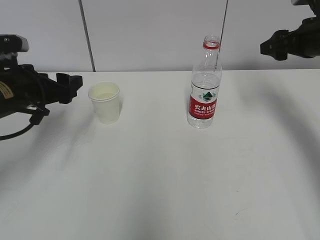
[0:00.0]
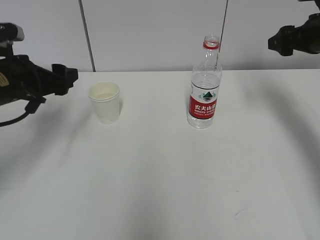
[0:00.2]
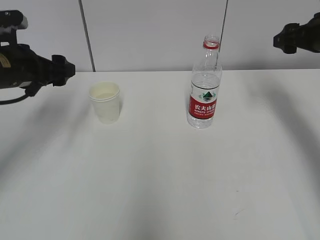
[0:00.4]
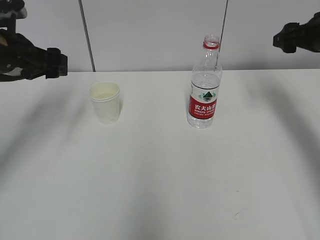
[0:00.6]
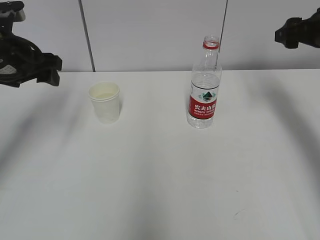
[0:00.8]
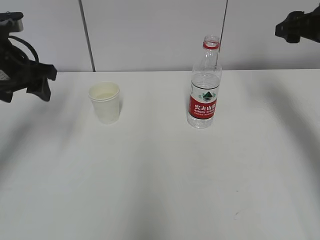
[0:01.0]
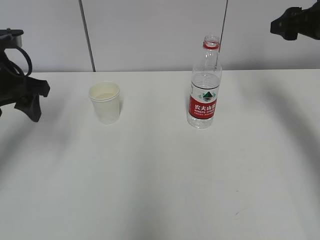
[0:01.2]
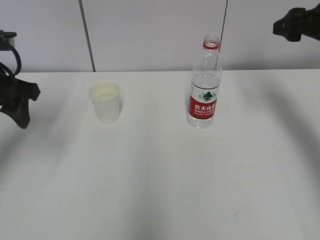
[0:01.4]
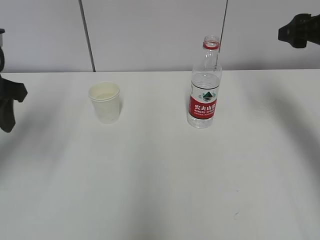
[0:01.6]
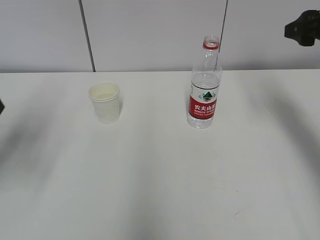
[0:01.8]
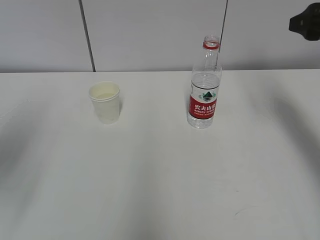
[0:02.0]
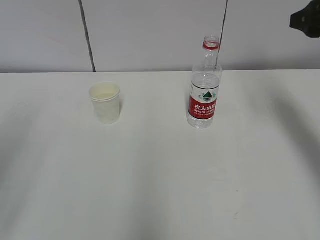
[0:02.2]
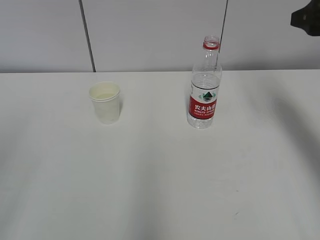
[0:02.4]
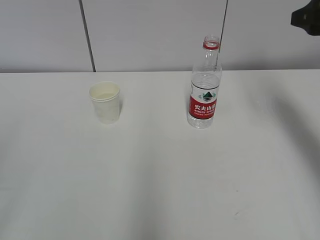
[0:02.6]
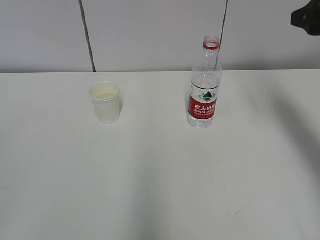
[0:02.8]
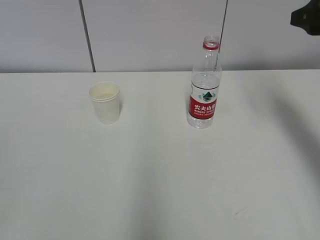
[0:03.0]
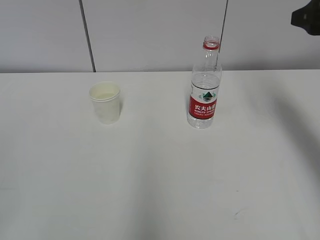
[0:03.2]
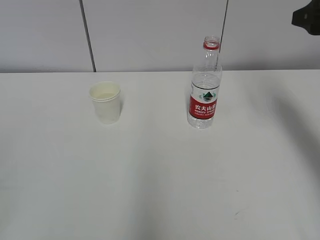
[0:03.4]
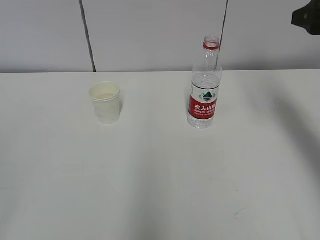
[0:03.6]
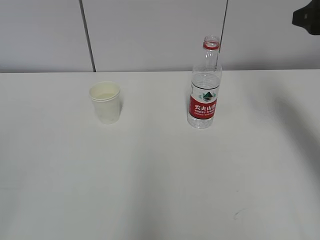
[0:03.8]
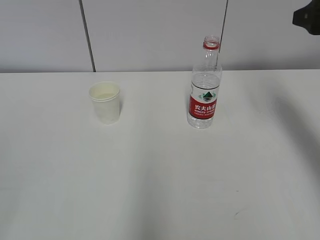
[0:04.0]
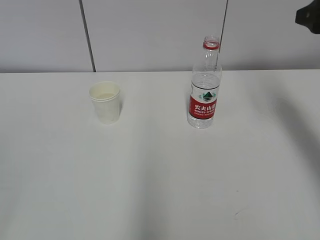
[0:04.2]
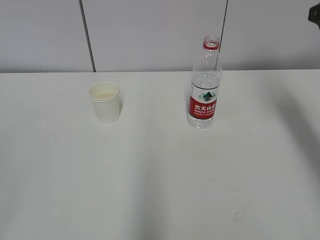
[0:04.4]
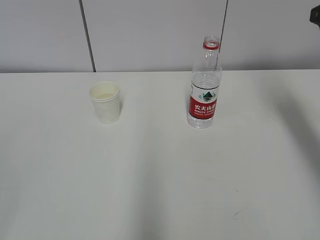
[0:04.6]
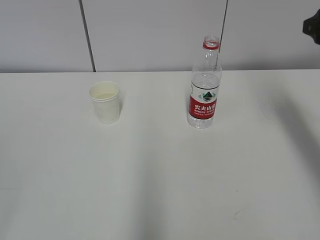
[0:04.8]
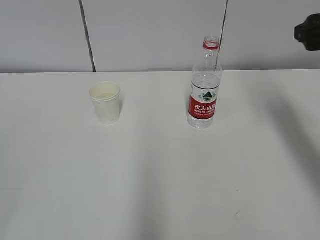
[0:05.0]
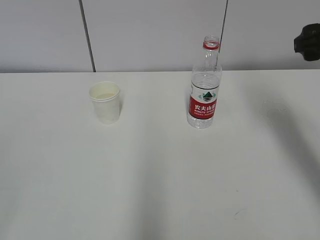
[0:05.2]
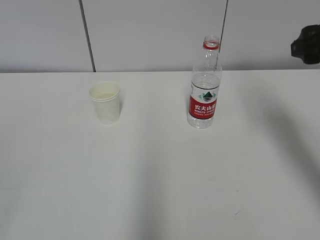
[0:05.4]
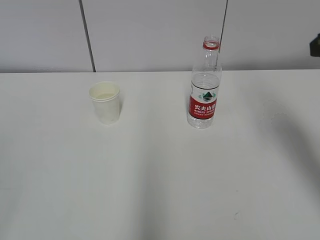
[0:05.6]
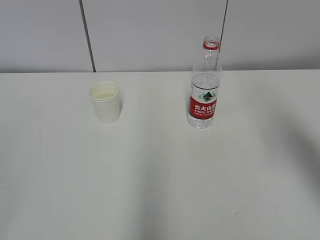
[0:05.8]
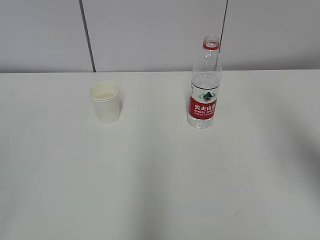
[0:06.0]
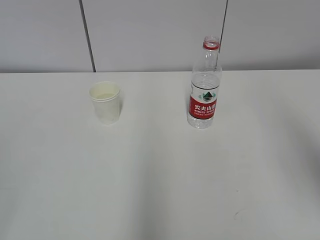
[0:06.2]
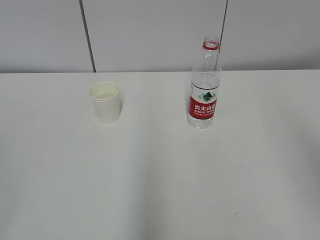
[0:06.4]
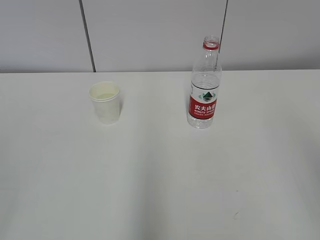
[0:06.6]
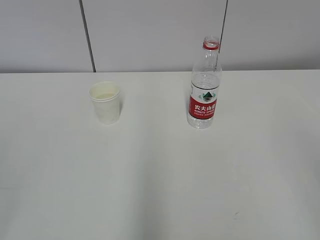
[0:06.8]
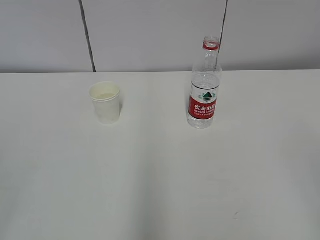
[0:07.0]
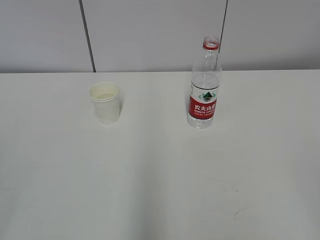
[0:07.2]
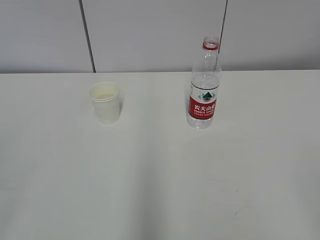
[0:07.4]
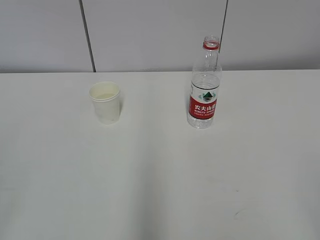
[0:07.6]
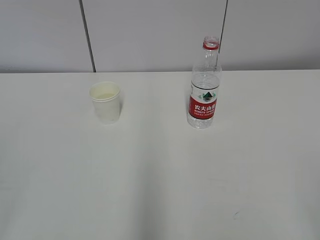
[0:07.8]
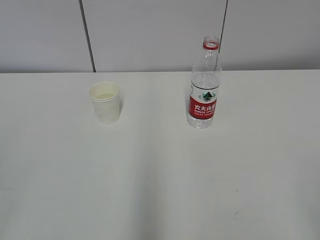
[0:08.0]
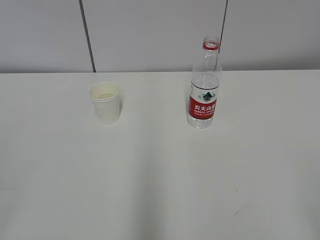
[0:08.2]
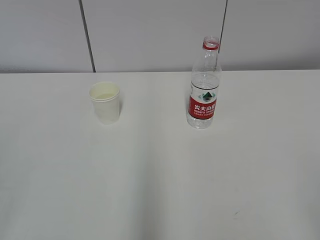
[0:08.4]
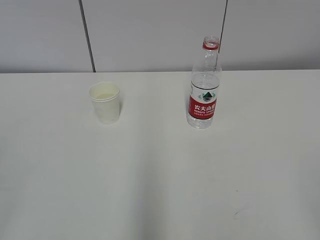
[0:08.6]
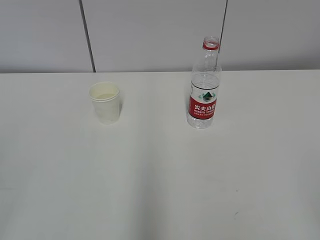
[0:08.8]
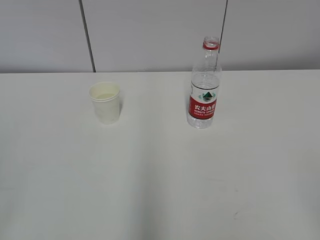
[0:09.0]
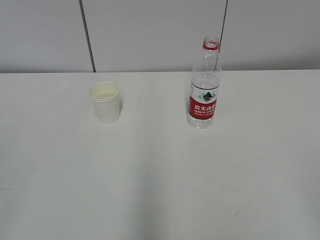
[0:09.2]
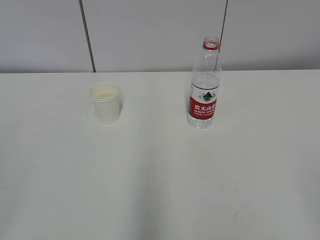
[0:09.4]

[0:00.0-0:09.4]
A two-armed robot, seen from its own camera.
0:00.0 to 0:01.6: The left gripper is displaced upward by about 10 cm. The right gripper shifts by approximately 5 cm.
0:01.6 to 0:03.2: The left gripper travels backward by some 30 cm, and closes its fingers.
0:04.8 to 0:06.2: The right gripper heads backward, covering approximately 20 cm.

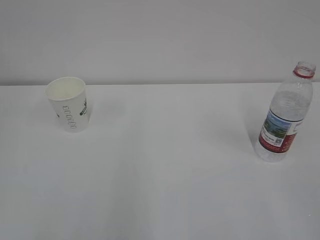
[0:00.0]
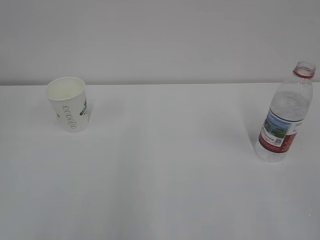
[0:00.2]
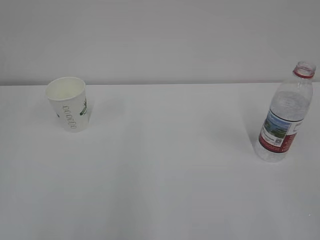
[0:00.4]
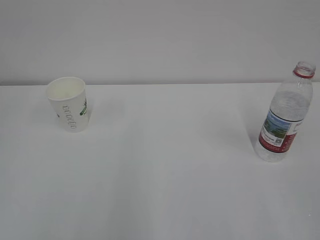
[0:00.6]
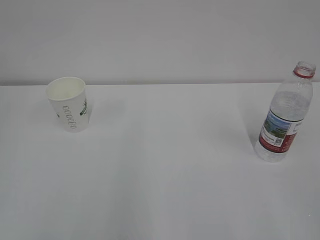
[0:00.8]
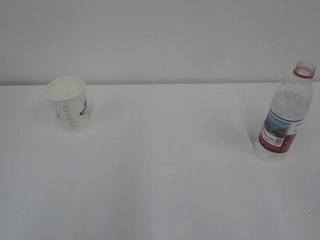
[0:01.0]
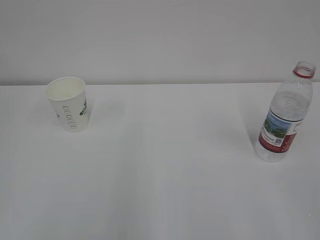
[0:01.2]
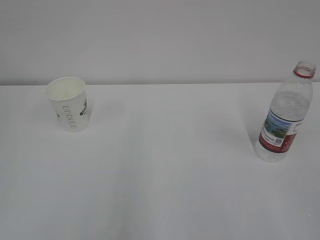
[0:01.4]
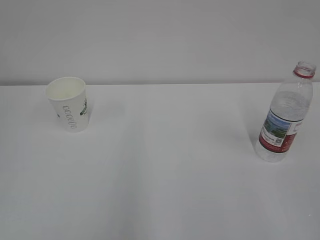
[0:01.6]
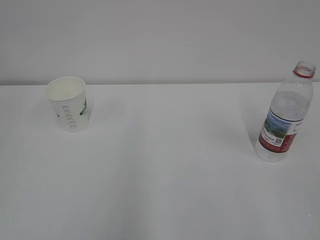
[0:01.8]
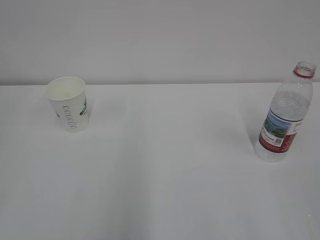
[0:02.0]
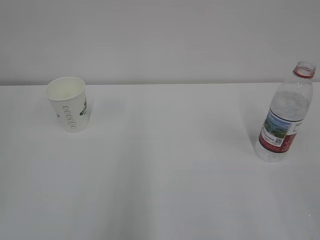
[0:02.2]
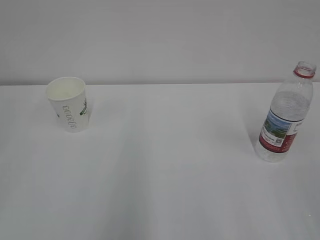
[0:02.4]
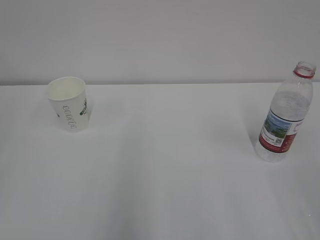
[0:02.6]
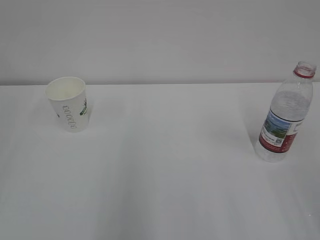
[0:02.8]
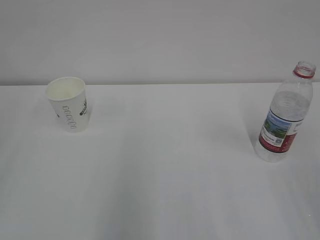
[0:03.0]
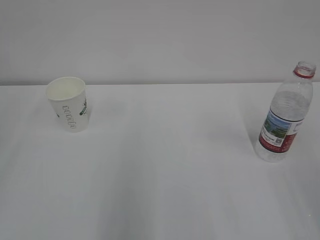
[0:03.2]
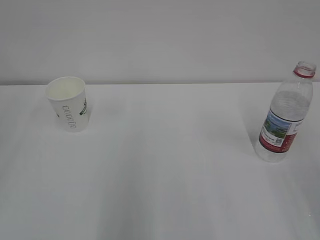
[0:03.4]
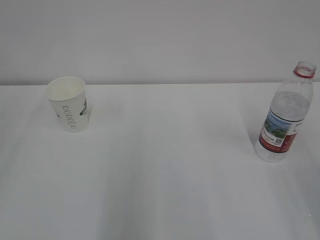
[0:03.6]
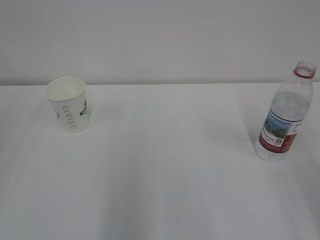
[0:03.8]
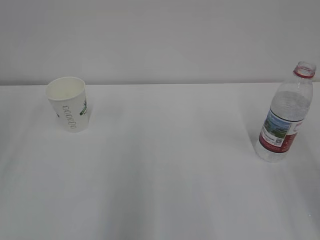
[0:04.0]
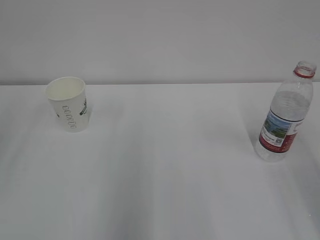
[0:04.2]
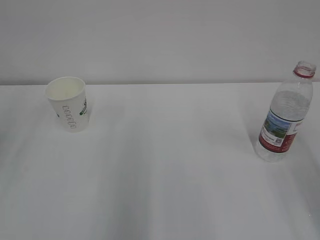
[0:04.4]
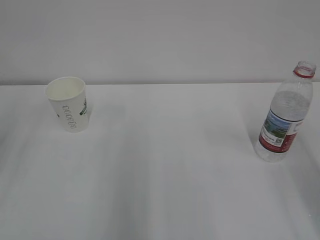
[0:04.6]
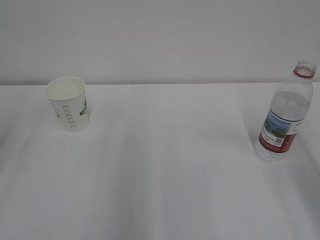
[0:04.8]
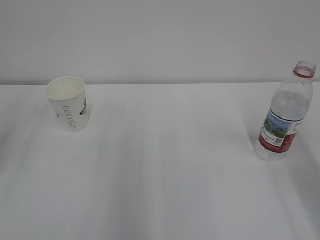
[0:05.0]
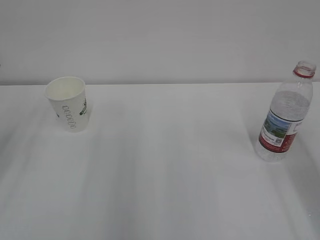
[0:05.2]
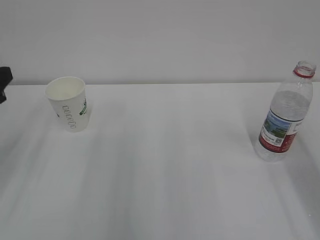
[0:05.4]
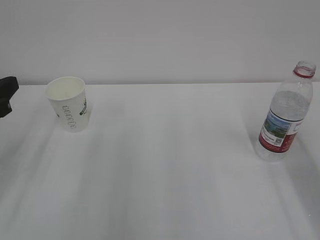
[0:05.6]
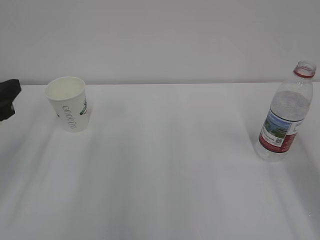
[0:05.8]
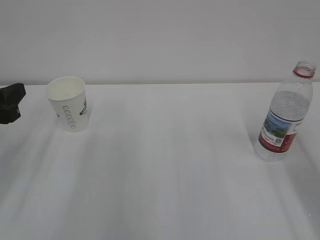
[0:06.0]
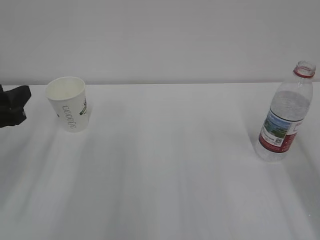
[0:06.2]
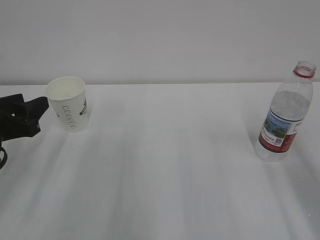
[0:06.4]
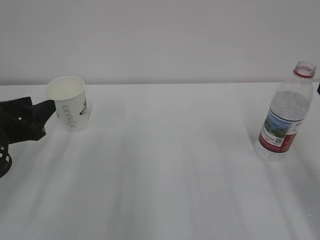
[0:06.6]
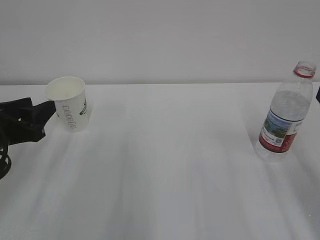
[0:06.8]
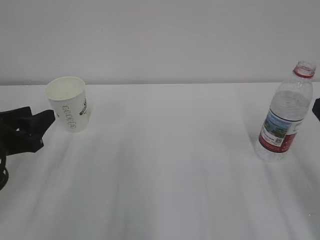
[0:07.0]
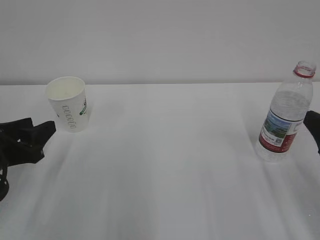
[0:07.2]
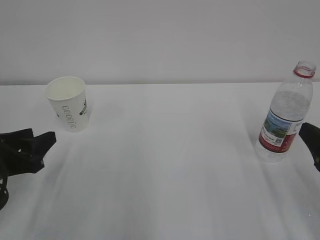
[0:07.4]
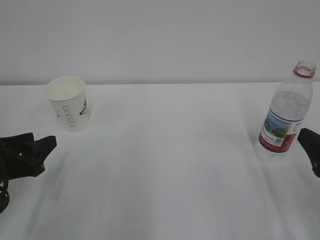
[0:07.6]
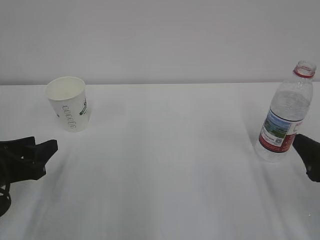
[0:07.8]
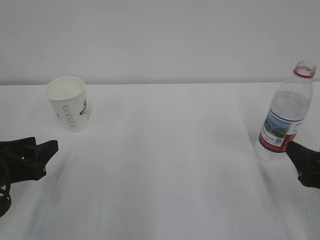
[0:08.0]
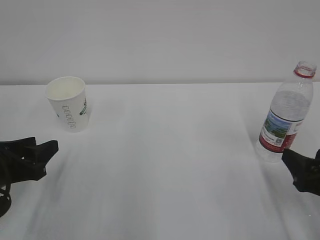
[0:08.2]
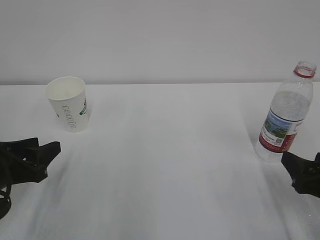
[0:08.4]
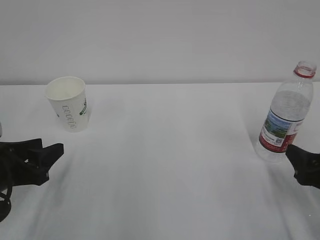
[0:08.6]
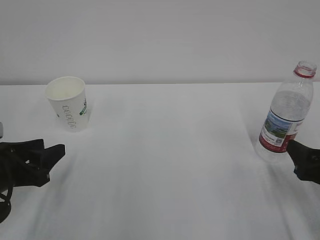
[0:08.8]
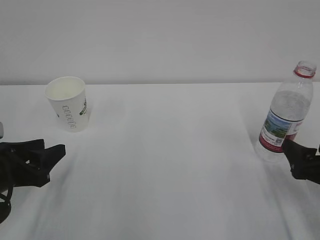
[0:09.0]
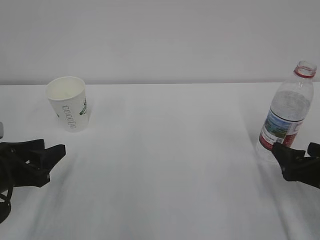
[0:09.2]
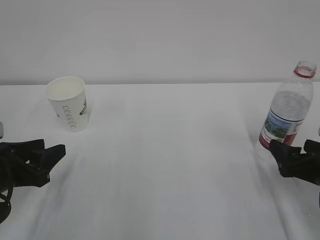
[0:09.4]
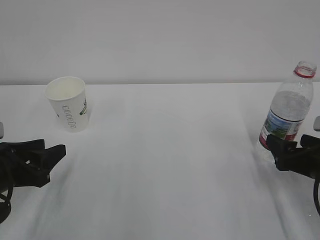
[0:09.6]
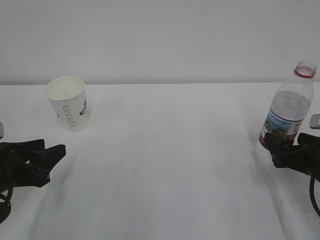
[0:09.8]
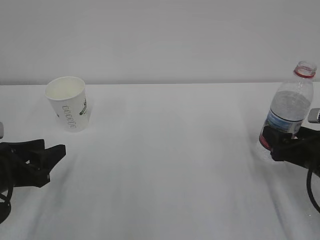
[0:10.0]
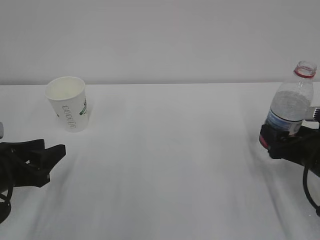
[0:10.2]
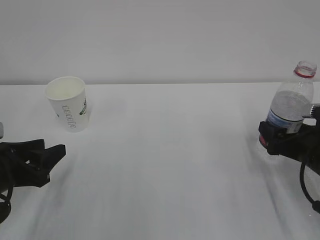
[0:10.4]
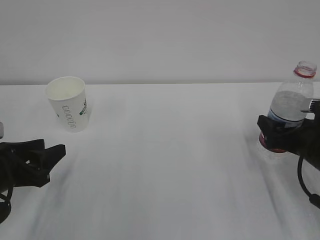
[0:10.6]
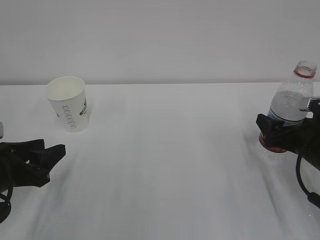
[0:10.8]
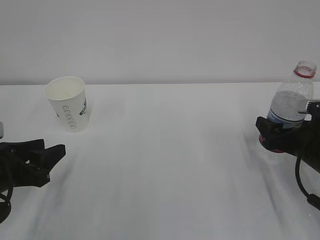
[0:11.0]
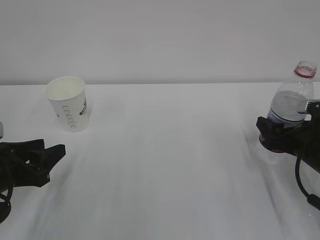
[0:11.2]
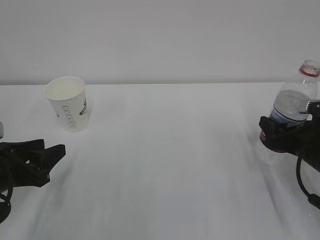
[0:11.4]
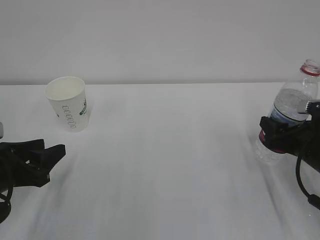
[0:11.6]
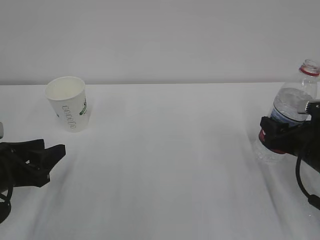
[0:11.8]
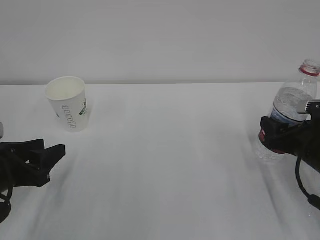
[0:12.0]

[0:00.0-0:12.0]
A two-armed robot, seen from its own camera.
0:04.4 to 0:06.0: The left gripper travels downward by about 10 cm.
0:06.0 to 0:07.6: The grippers both shift downward by some 10 cm.
0:07.6 to 0:09.0: The right gripper moves downward, some 5 cm.
0:09.0 to 0:10.4: The right gripper heads forward, covering some 5 cm.
0:10.4 to 0:12.0: The right gripper closes its fingers.

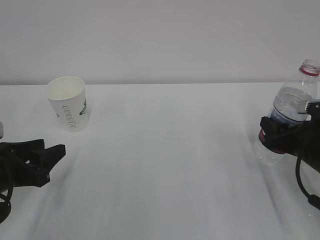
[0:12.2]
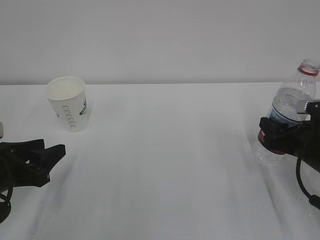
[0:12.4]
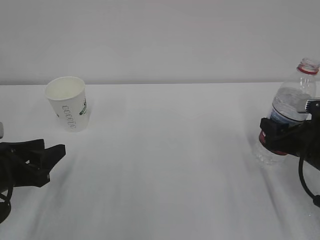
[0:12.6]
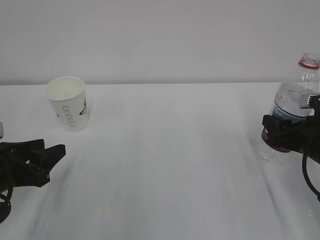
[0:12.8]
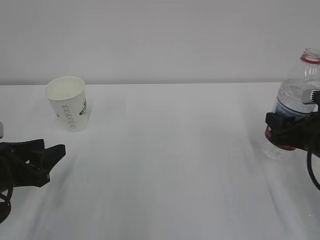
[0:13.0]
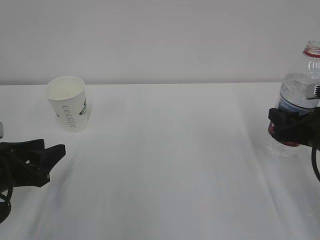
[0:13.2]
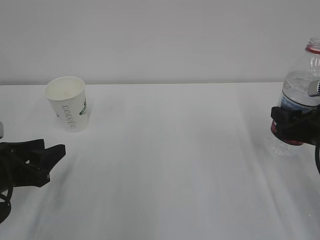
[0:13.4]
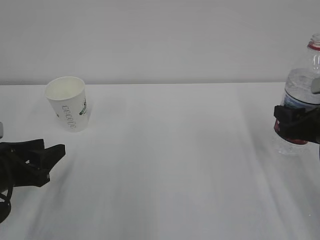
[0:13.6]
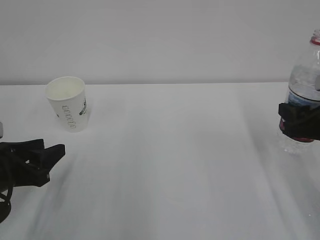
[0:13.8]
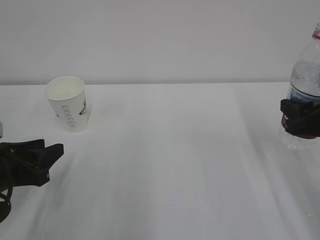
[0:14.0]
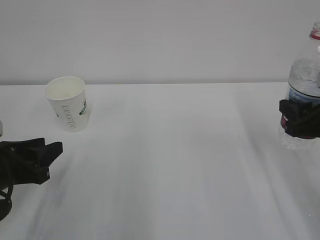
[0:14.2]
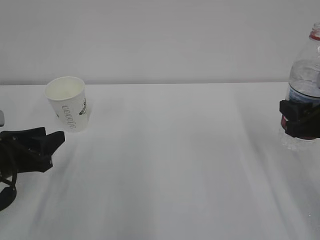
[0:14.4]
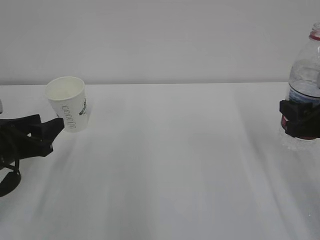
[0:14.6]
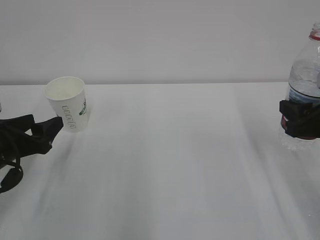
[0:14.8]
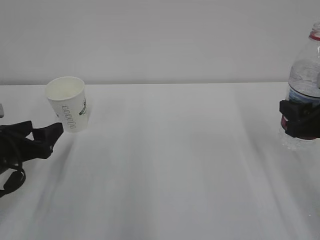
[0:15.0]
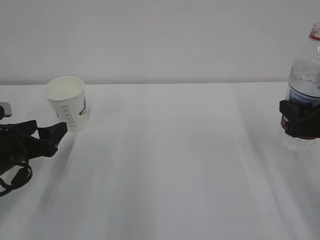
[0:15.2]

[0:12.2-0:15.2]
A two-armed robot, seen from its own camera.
0:12.2 to 0:13.8: The right gripper shifts some 10 cm upward.
0:13.8 to 0:15.2: The left gripper ends up about 5 cm from where it was, and opens up.
